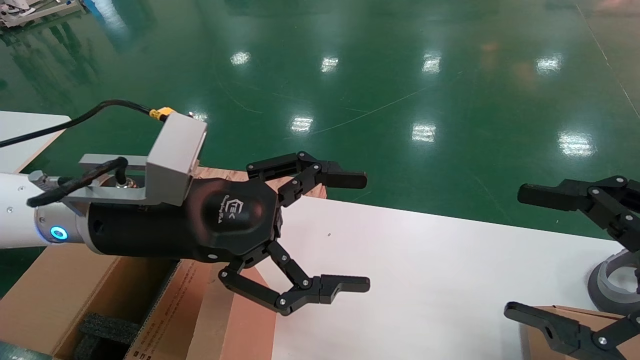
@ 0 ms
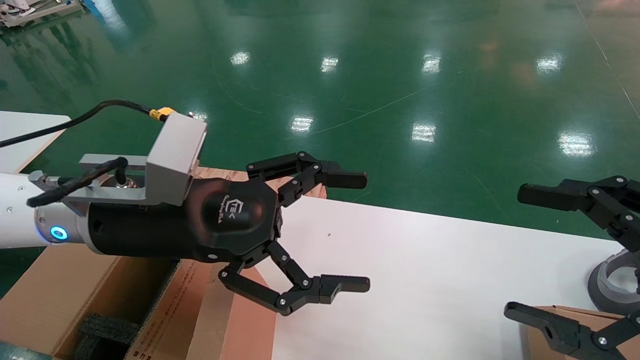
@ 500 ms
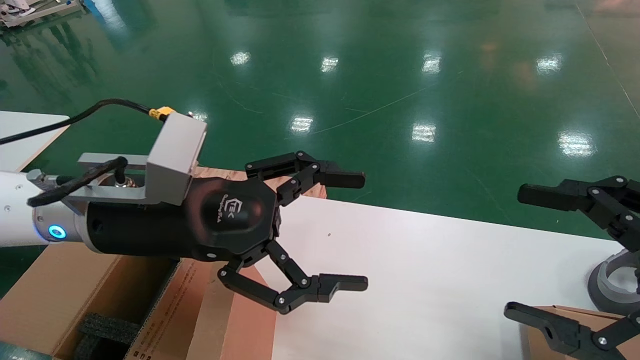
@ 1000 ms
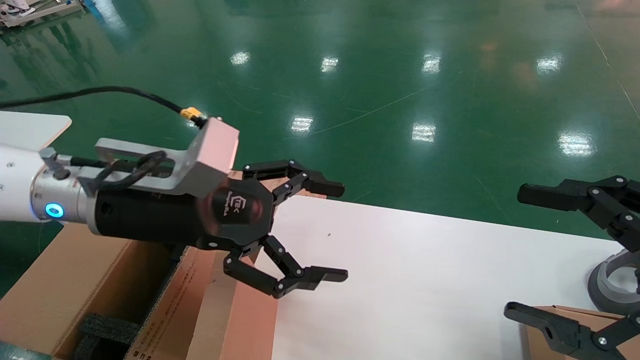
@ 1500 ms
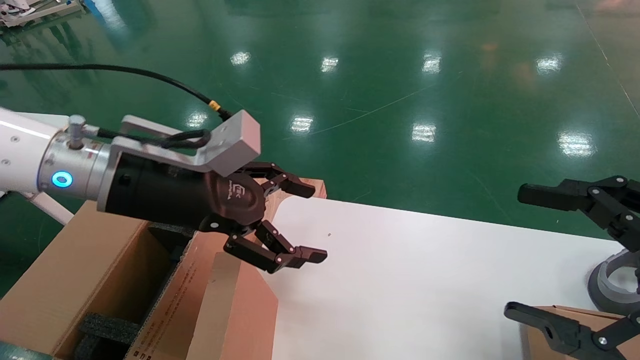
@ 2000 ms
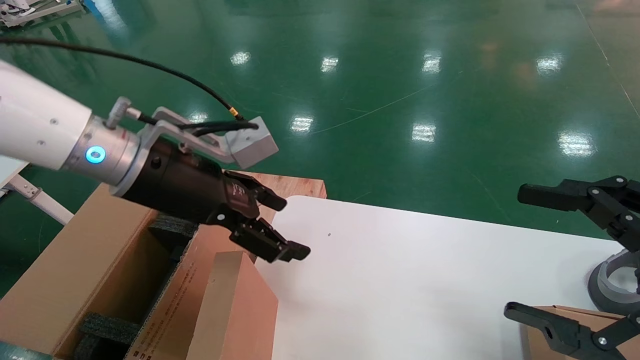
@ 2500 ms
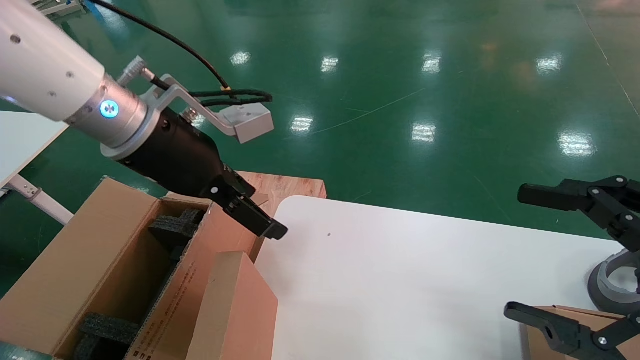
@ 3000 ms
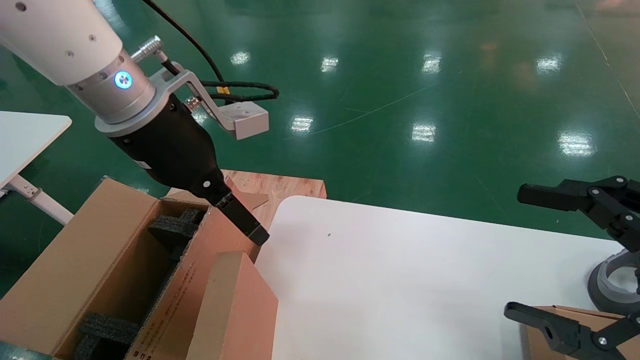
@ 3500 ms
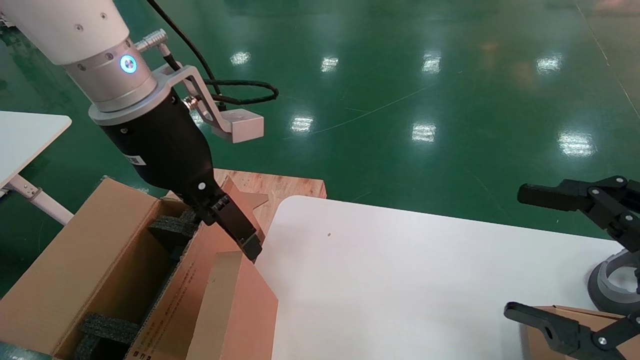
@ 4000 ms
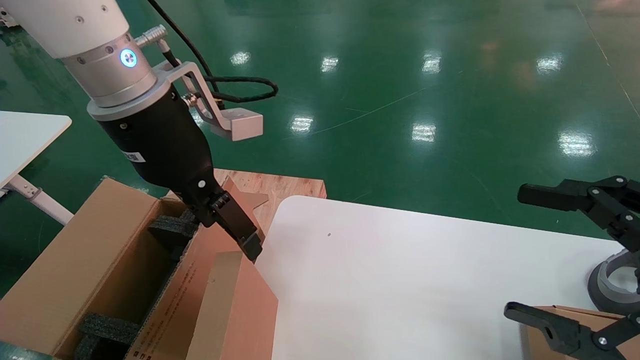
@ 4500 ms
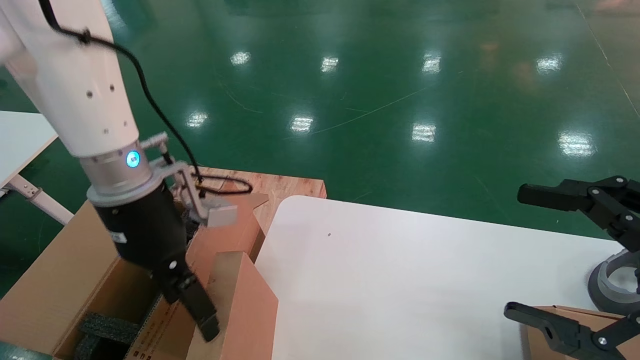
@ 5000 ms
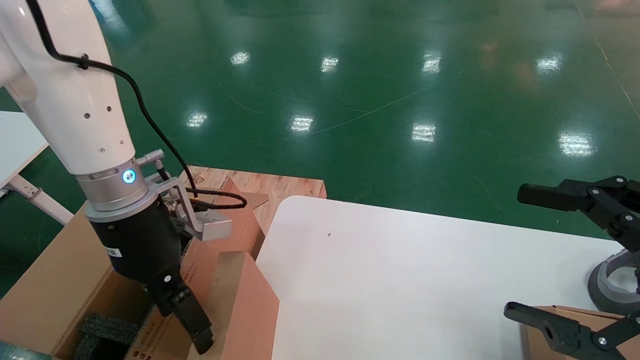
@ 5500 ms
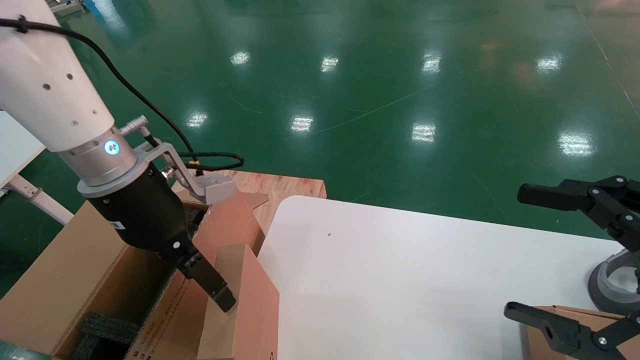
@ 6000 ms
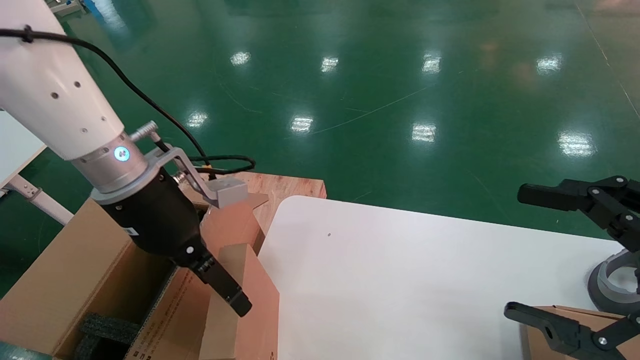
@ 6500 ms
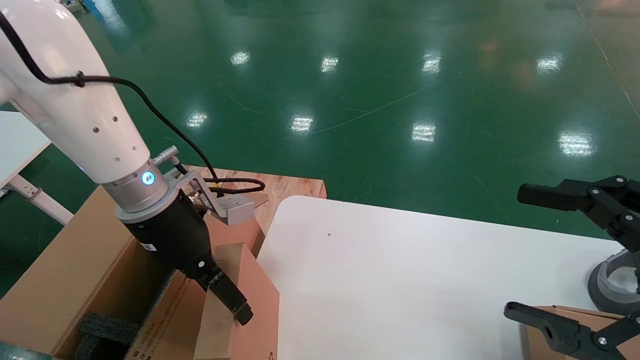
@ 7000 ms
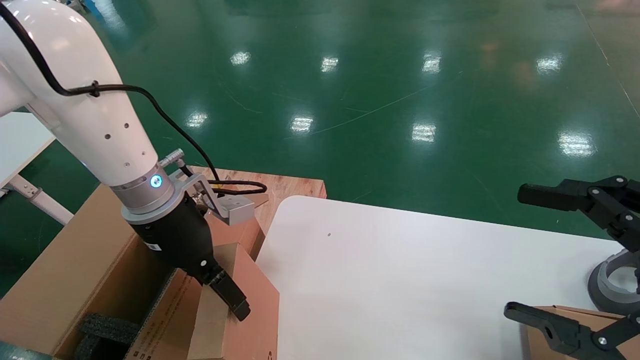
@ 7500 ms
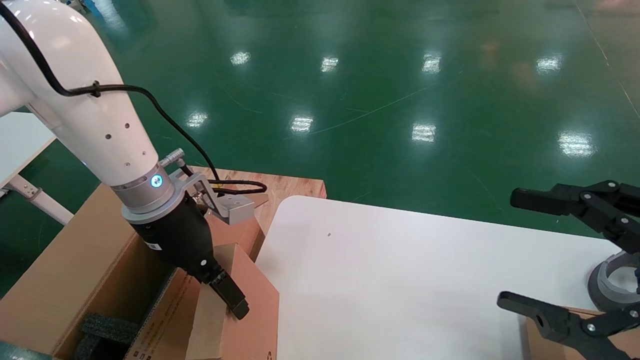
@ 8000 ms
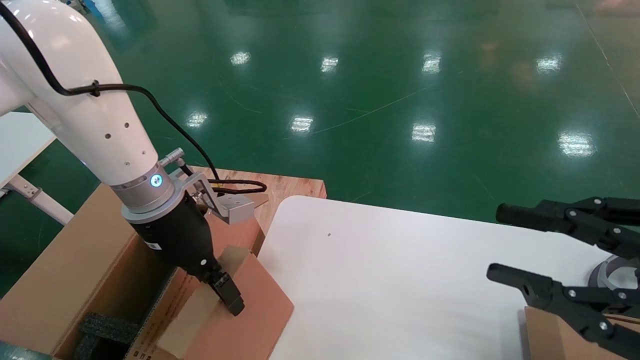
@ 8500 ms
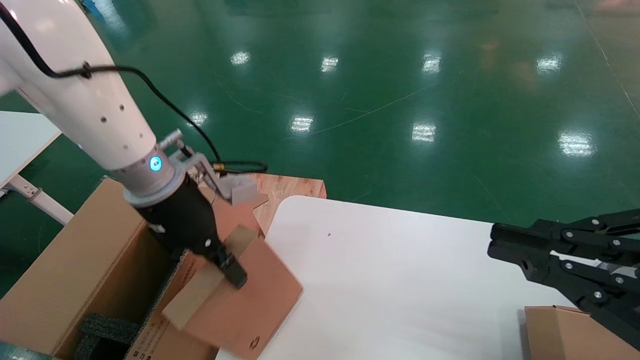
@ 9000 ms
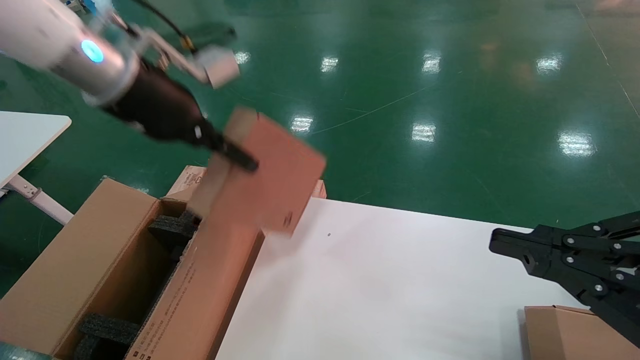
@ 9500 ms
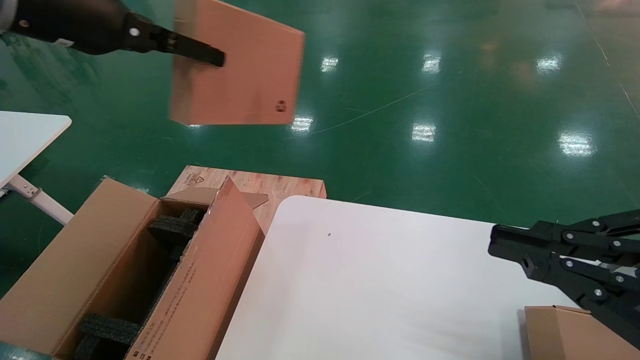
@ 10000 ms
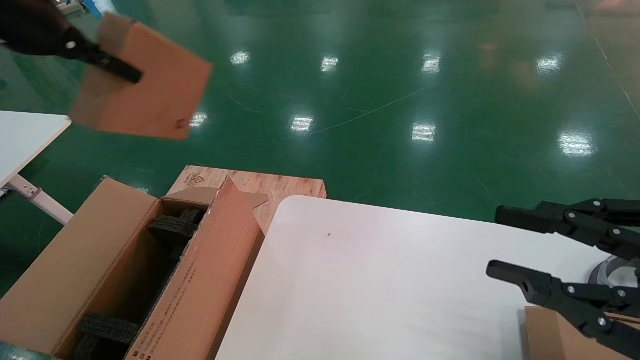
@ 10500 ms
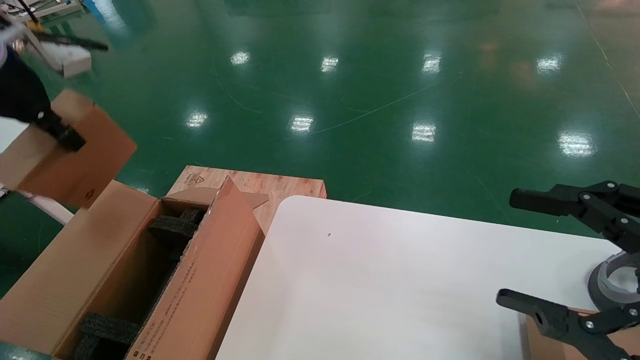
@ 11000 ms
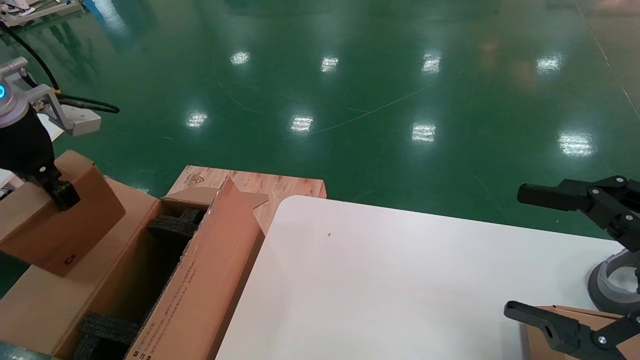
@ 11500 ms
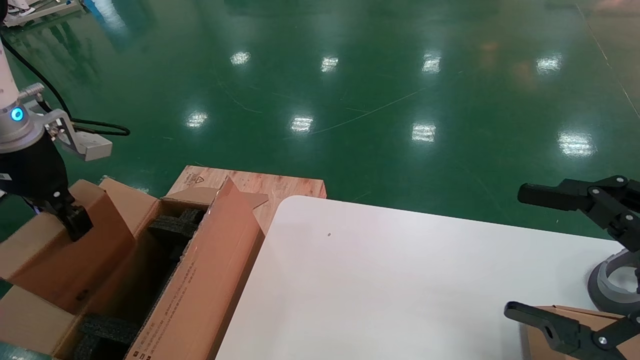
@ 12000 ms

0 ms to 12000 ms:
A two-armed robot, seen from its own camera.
Task of the whole recording: put the box on the table into the big box.
Step, 0 ms to 8500 ms: Grasp the paper box.
2000 ms to 4000 ms: The left gripper heads upward, covering some 5 cm.
4000 ms to 6000 ms: The left gripper travels downward and to the left by some 10 cm.
6000 ms to 8000 ms: The left gripper ends up about 5 cm from where it was.
8000 ms to 10000 ms: The left gripper heads upward and to the left, covering about 25 cm, and closes its fingers. Meanwhile the right gripper closes.
10000 ms to 12000 ms: The right gripper opens. Meanwhile the left gripper goes some 15 cm downward and to the left.

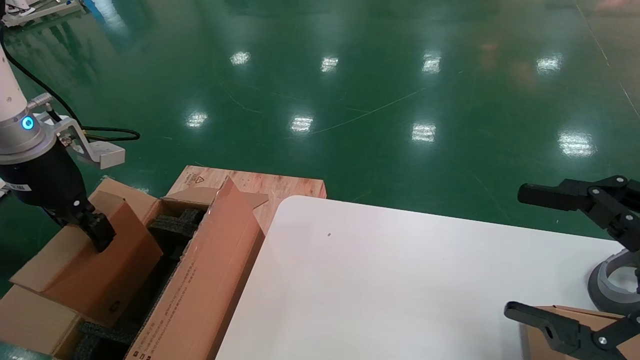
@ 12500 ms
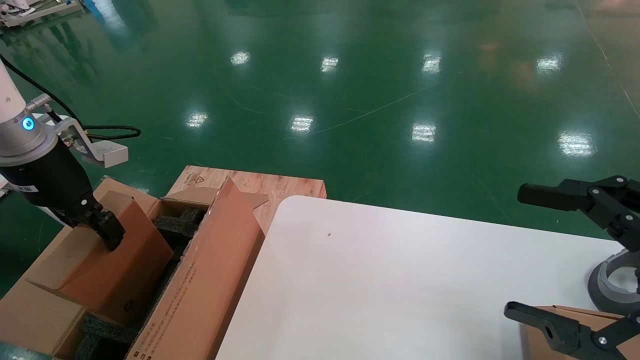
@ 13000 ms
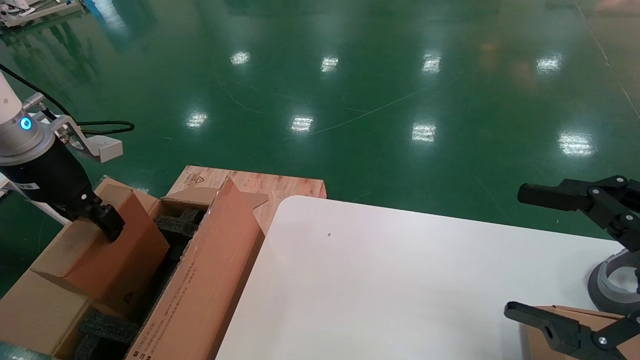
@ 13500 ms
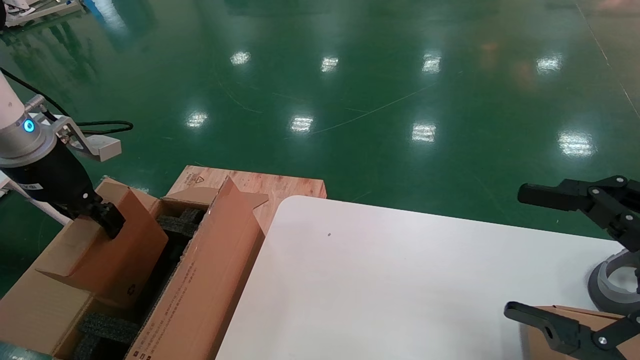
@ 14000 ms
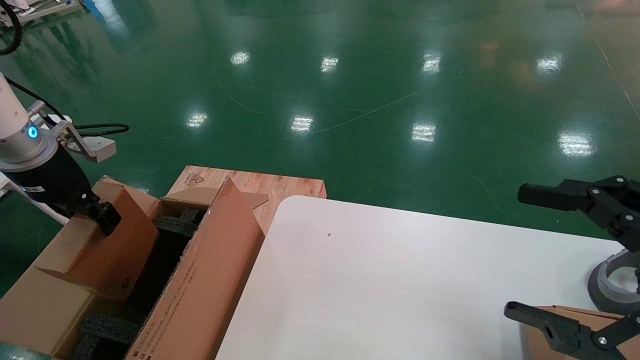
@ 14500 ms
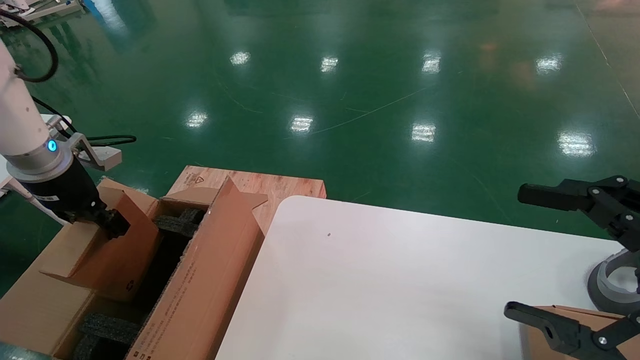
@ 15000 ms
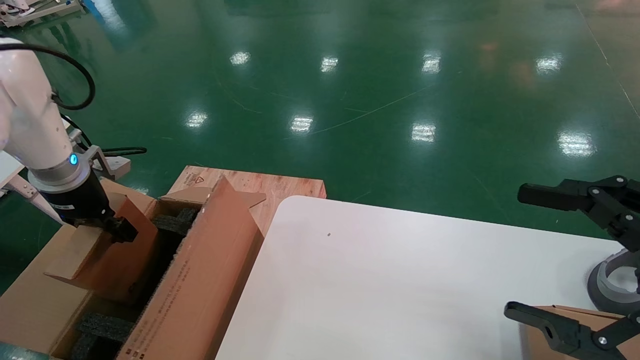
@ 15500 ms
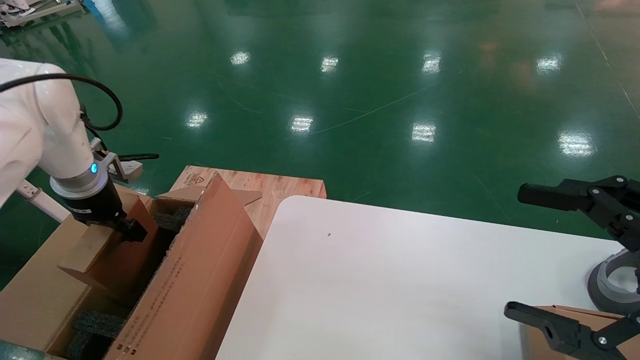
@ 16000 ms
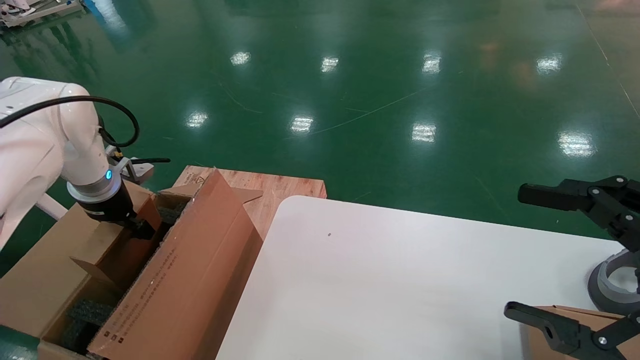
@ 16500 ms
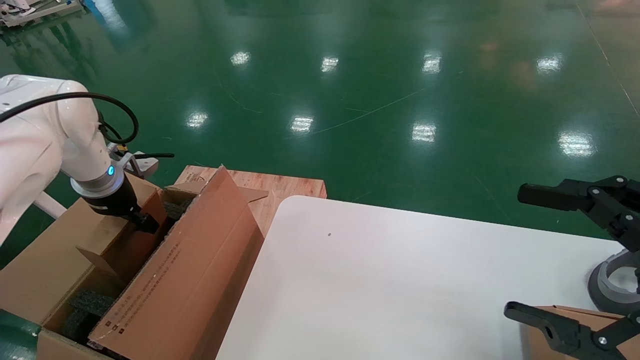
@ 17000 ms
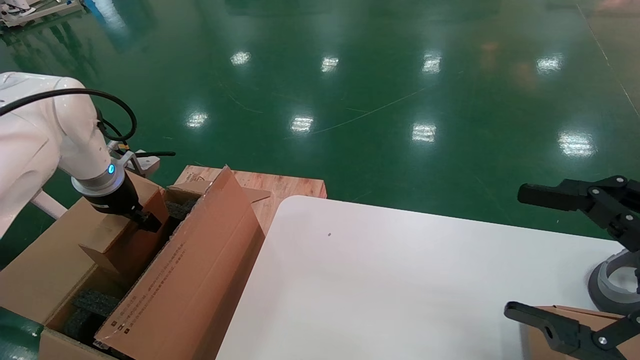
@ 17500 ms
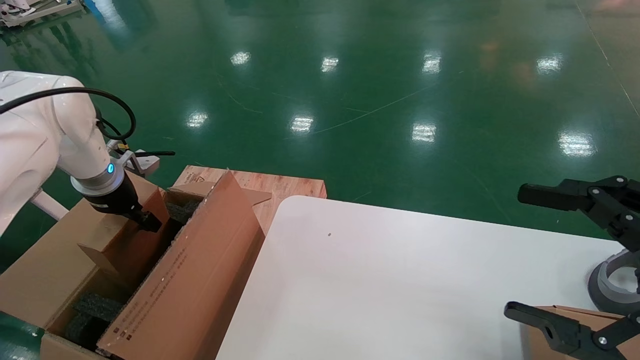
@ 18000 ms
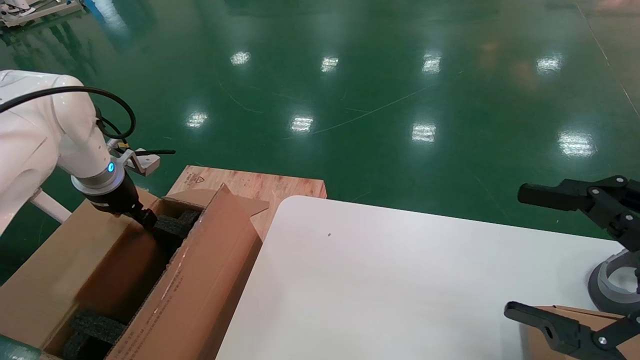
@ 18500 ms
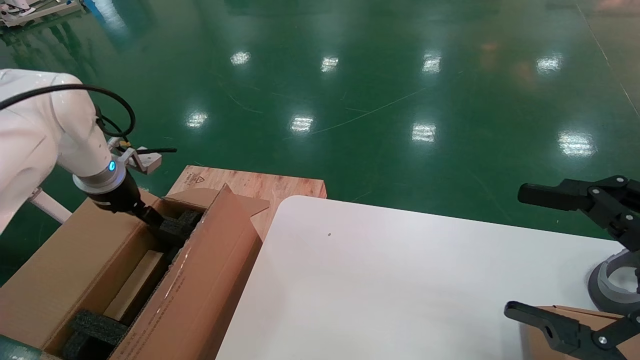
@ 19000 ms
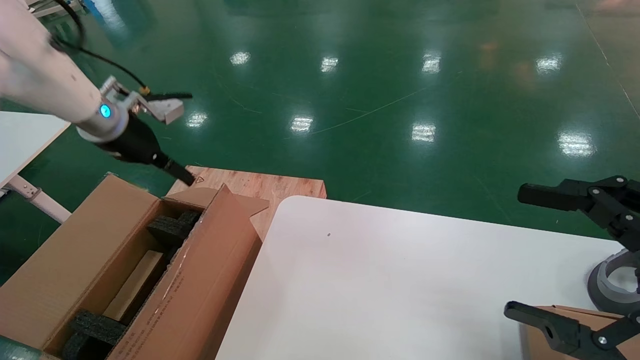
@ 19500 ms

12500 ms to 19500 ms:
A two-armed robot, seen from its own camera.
Task of the whole recording: put the box on the table into the big box.
Step, 12500 ms to 18500 ms: Place the paper box in the another big box.
12500 ms to 14500 ms: The left gripper shifts by about 5 cm.
14500 ms to 16000 ms: The left gripper moves downward and forward, roughly 10 cm.
16000 ms to 17500 ms: There are only small adjustments of the grippers.
17500 ms to 19500 ms: The left gripper heads upward, covering roughly 10 cm, and opens.
